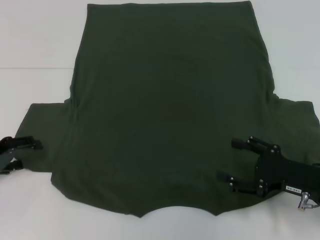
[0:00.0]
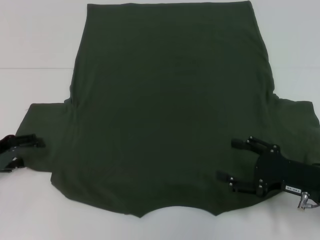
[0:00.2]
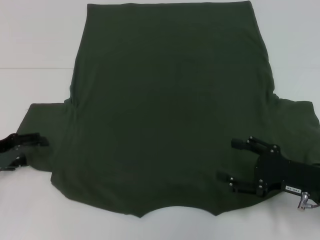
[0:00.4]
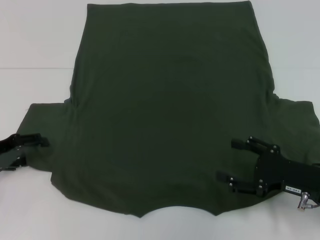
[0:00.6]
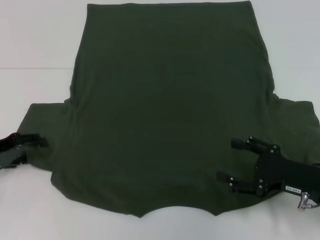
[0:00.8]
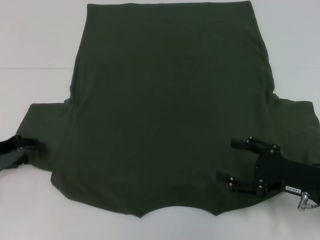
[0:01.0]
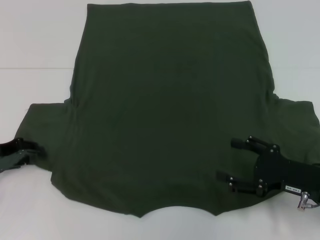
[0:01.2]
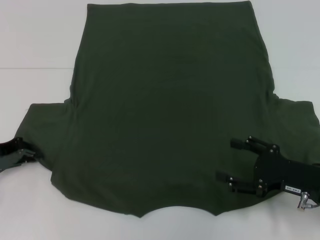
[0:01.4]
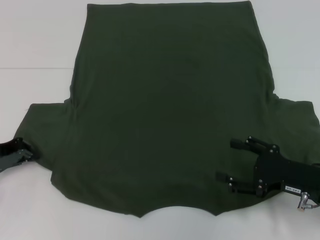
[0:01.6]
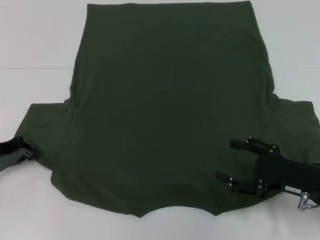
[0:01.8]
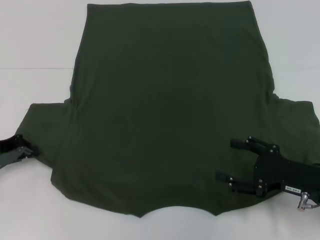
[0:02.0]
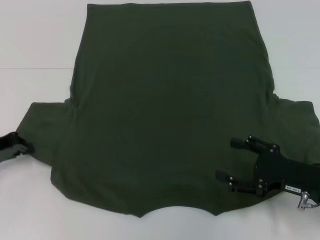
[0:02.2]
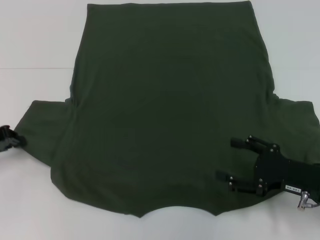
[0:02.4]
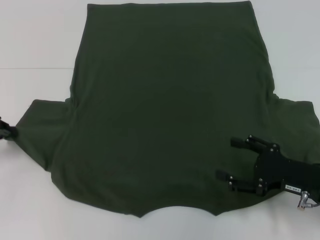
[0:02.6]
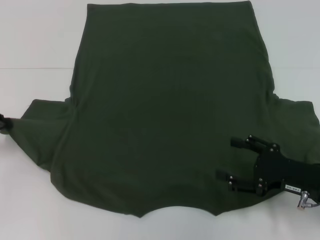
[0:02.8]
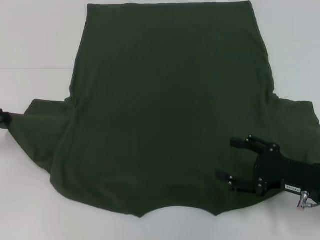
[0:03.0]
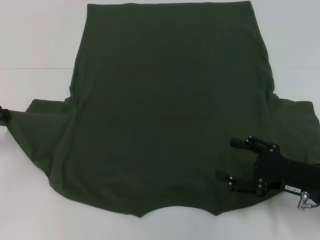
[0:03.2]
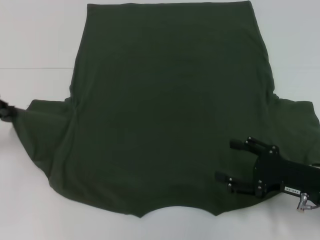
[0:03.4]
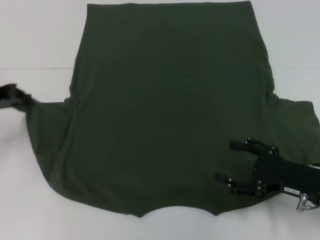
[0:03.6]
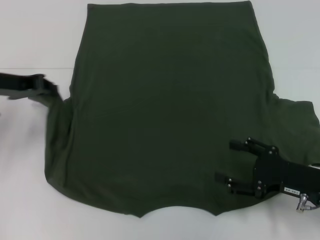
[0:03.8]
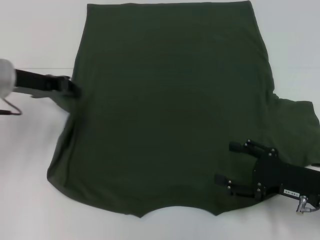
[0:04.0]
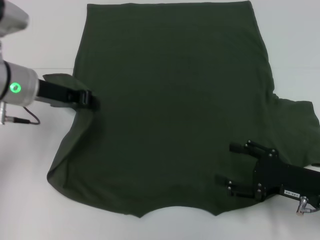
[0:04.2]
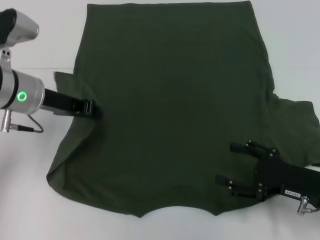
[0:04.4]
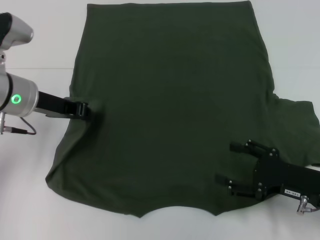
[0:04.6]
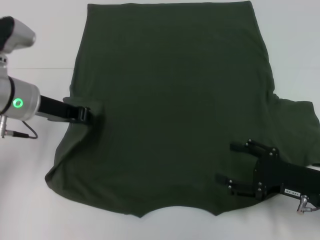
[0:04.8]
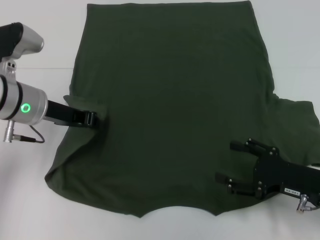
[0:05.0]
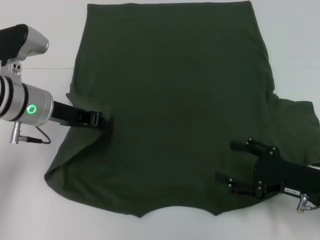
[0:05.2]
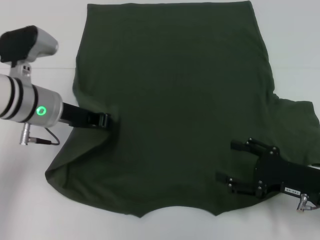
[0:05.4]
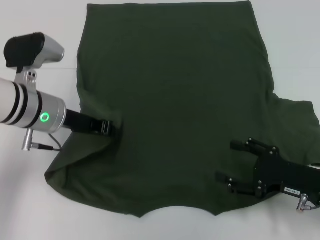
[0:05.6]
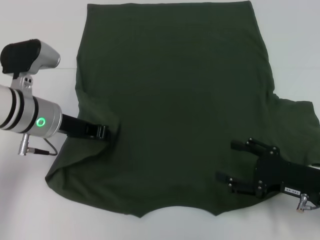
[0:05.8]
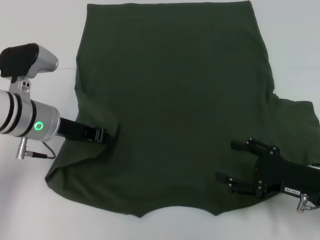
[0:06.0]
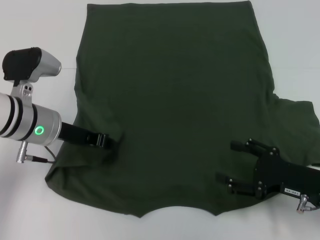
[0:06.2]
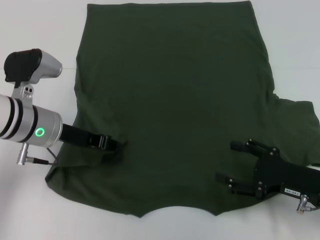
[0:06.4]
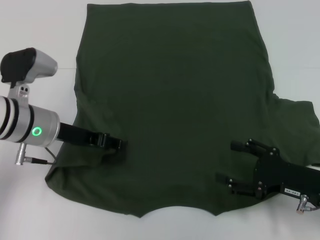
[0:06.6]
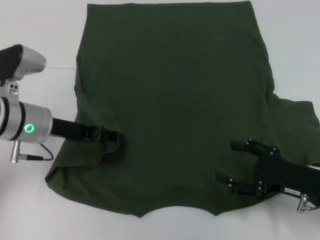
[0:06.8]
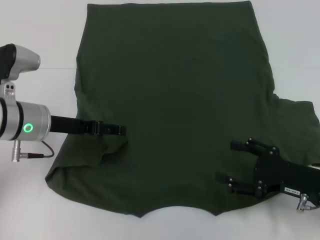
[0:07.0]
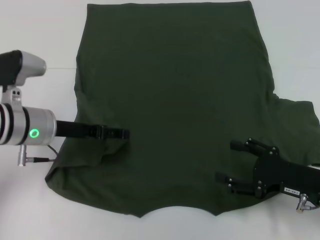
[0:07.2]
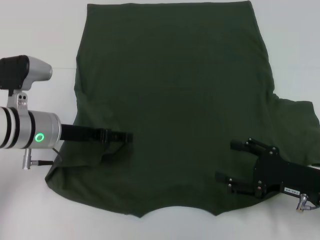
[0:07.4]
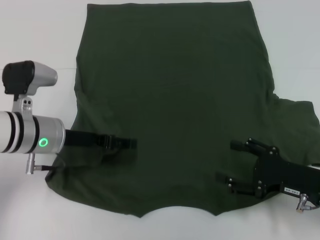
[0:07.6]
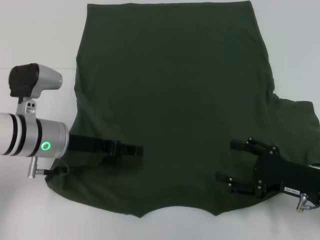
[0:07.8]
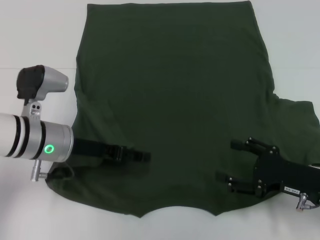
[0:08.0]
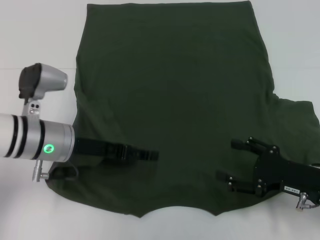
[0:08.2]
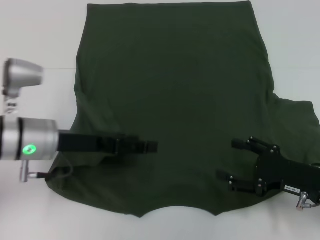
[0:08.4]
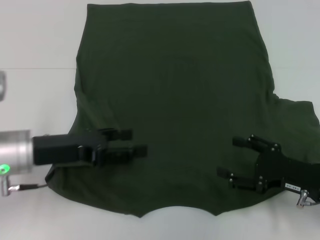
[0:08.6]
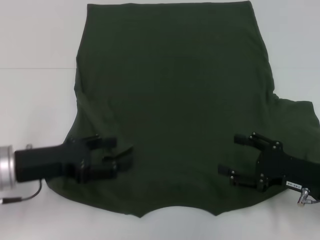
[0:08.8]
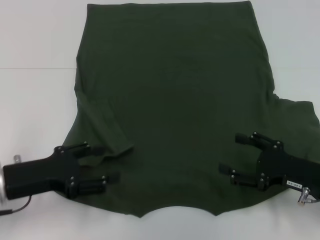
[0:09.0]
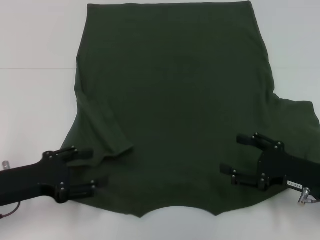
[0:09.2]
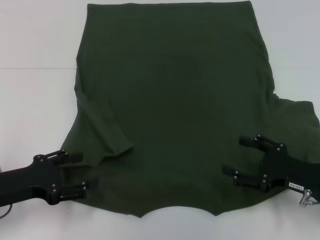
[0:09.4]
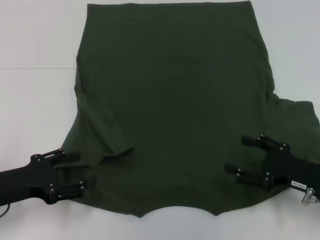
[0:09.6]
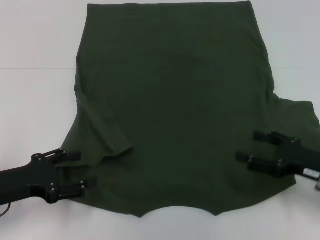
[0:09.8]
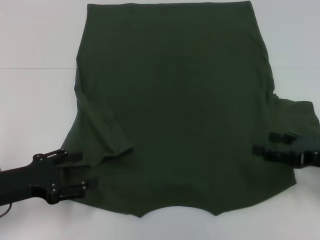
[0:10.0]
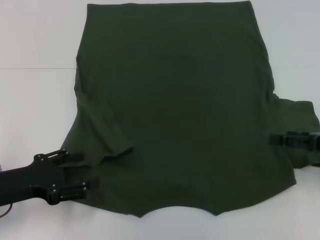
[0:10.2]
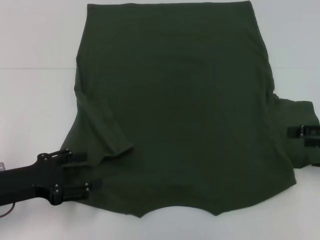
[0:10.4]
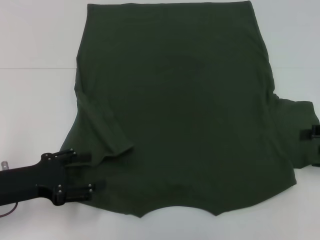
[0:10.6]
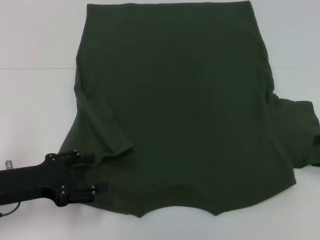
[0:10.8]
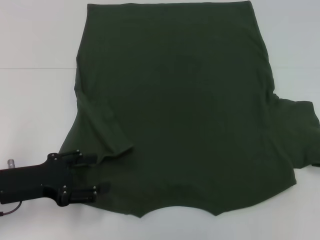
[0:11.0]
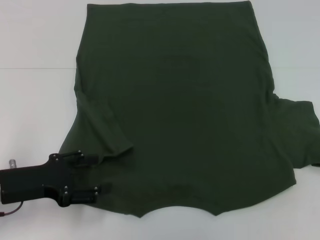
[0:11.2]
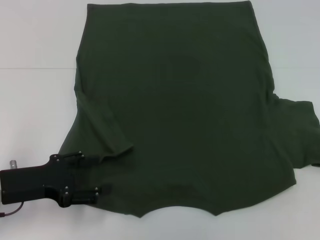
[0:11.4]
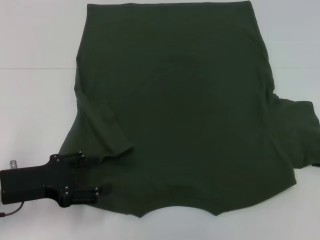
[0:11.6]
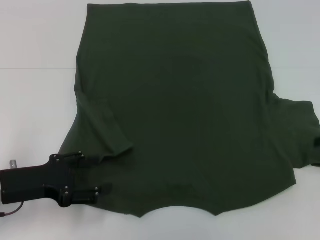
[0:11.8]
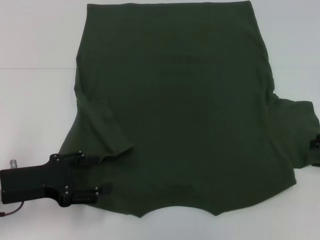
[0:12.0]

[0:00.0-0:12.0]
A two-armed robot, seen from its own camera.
Step, 0:00.0 to 0:06.4: Fold the bottom left sleeve with your left hand.
0:00.0 to 0:01.6: The left gripper closes its fingers.
0:01.6 to 0:03.0: The left gripper travels upward by about 5 cm.
0:03.0 to 0:04.4: The left gripper is displaced to the right by about 15 cm.
0:04.4 to 0:06.0: There are only small adjustments of the grippers.
0:06.0 to 0:07.6: The left gripper opens up.
0:07.6 to 0:09.0: The left gripper moves backward and to the left, some 10 cm.
0:09.0 to 0:10.4: The right gripper shifts approximately 10 cm upward and to the right.

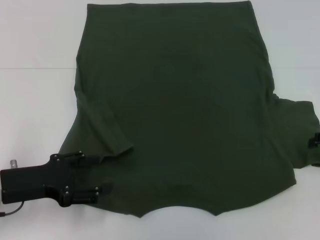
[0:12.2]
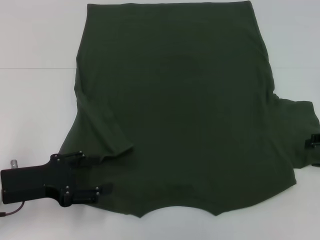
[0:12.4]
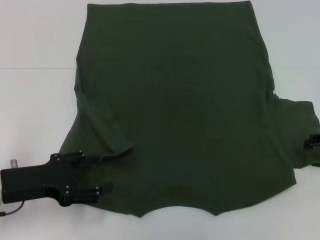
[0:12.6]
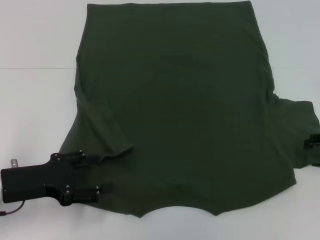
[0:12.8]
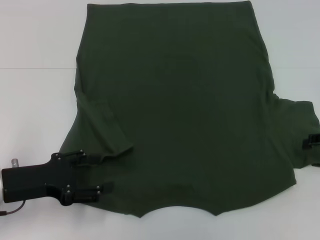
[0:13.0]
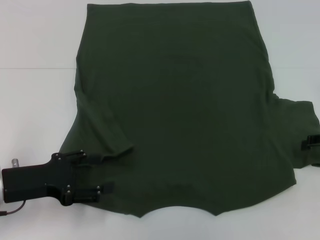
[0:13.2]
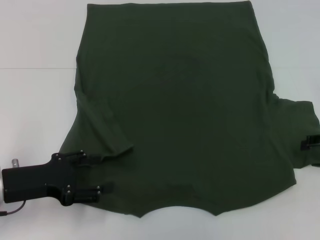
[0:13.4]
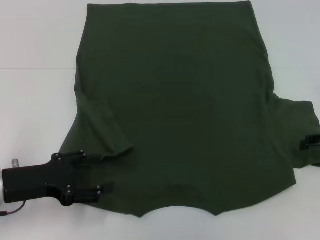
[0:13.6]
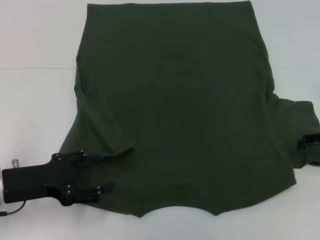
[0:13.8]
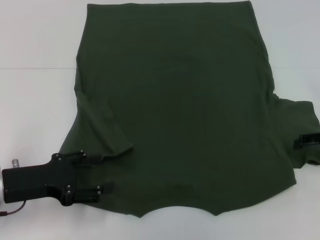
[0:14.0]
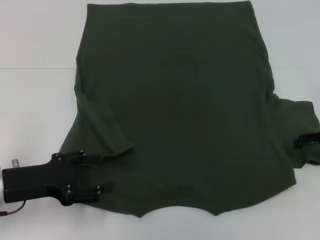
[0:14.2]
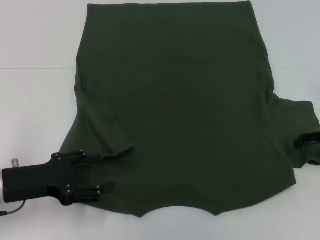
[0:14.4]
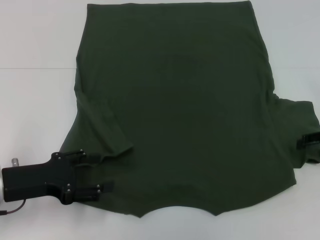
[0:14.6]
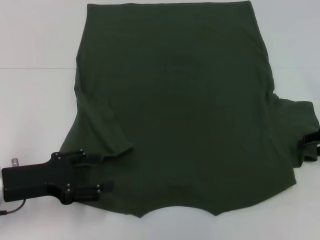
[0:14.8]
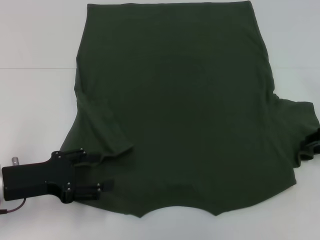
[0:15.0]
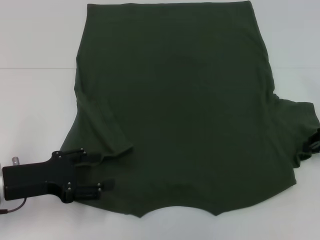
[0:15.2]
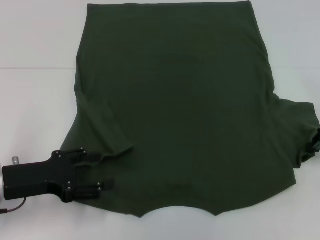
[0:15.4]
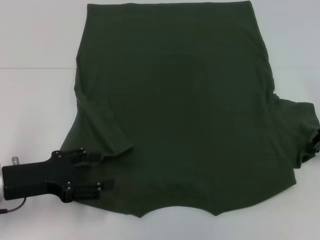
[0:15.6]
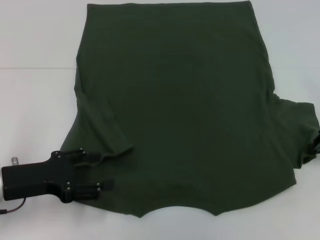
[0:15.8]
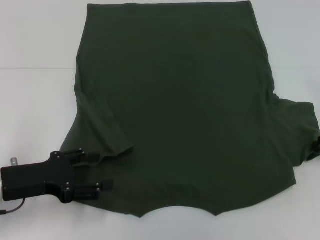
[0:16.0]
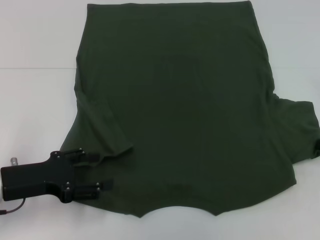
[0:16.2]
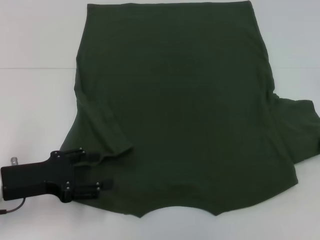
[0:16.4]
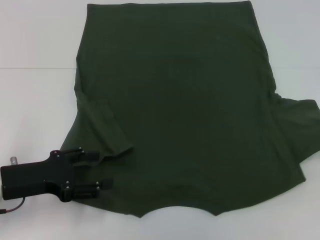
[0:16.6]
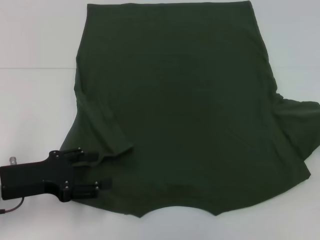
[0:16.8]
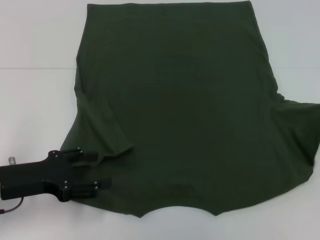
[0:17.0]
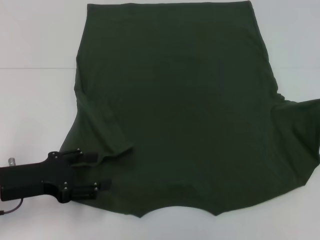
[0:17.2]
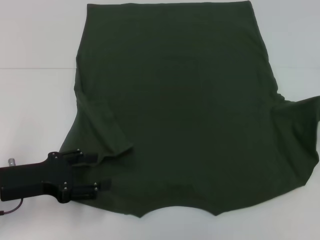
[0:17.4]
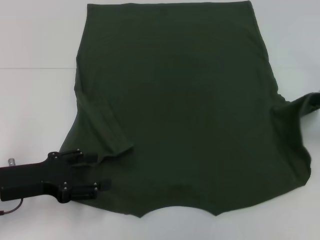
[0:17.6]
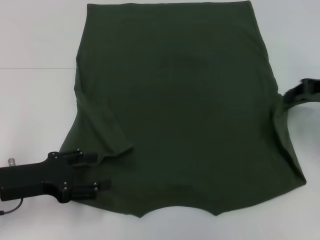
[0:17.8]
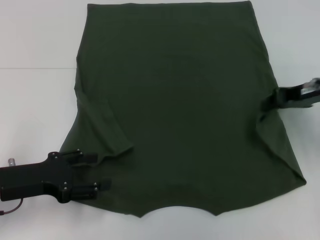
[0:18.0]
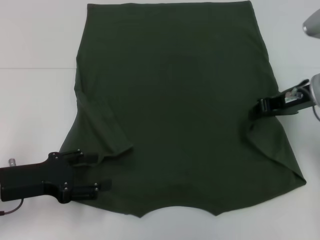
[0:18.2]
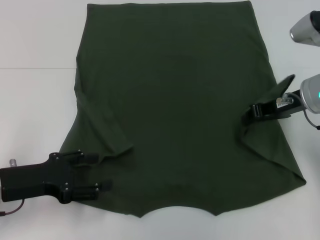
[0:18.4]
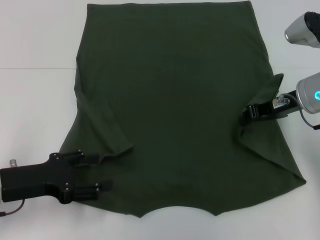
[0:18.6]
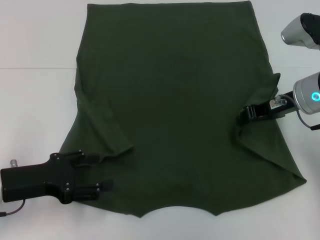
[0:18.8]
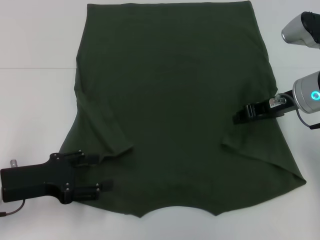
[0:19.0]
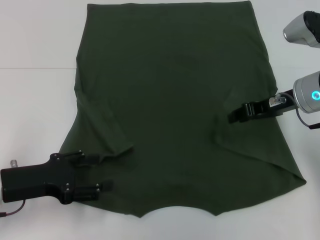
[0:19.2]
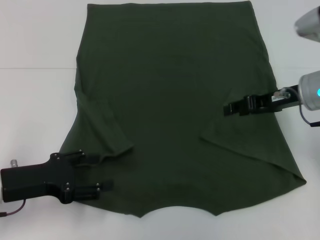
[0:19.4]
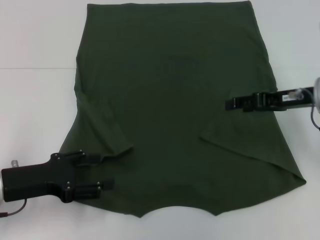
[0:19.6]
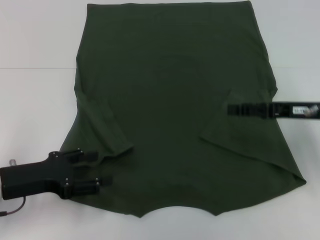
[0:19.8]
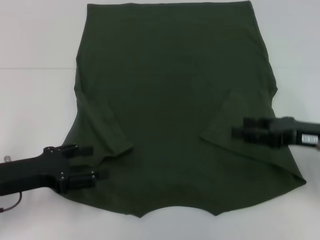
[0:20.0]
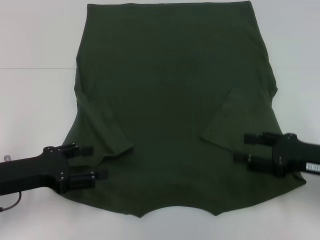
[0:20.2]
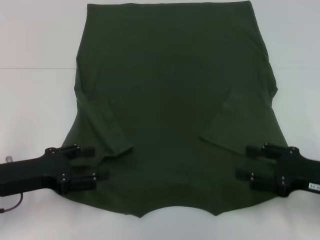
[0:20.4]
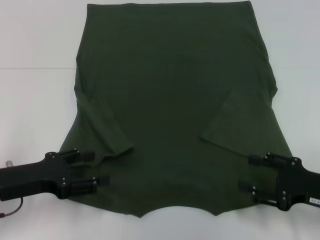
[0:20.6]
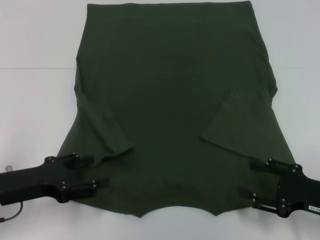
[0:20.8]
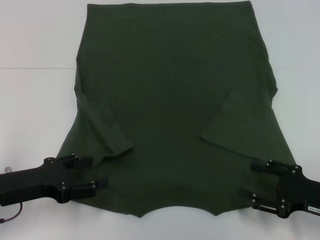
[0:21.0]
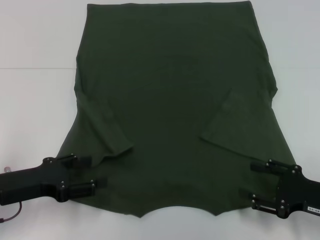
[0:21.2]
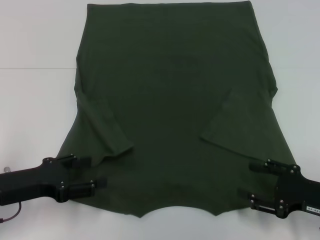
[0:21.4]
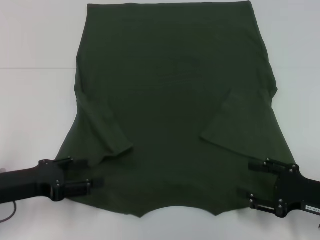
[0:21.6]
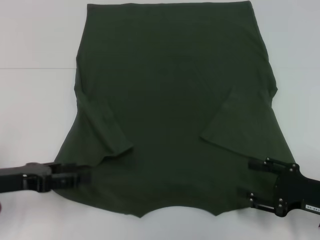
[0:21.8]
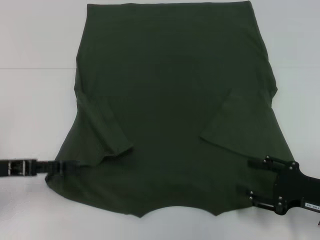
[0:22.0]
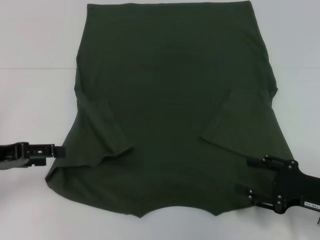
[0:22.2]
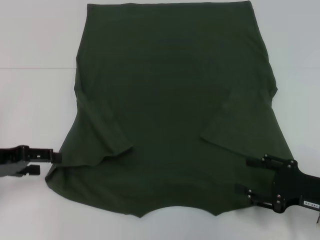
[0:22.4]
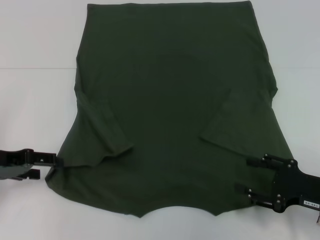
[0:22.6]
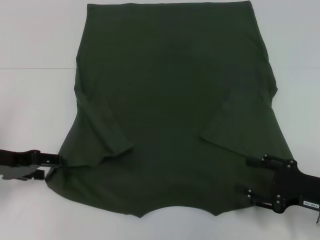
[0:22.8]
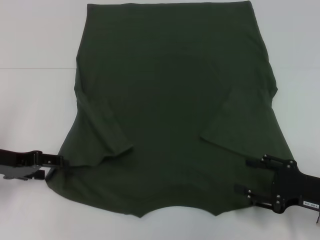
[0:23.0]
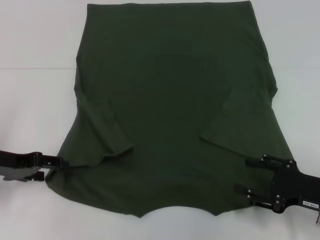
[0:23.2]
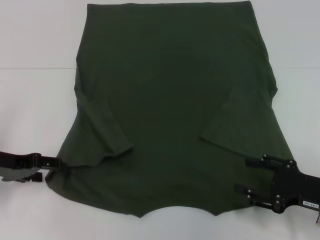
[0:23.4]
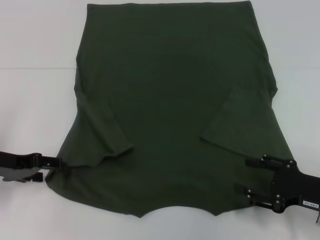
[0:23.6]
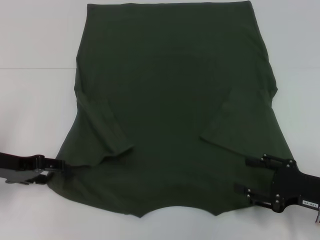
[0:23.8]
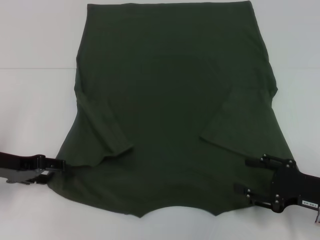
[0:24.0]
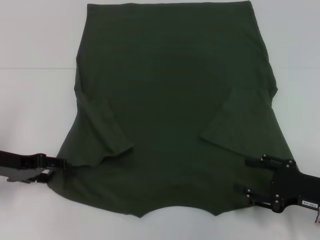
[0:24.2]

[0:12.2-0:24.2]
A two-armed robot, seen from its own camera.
Step, 0:12.2 to 0:19.2: Fold the bottom right sleeve with your right hand.
0:15.2 to 0:16.6: The right gripper closes up.
0:16.6 to 0:18.2: The right gripper is displaced to the left and forward by some 15 cm.
0:18.2 to 0:19.8: The right gripper shifts by approximately 5 cm, and opens its fingers.
0:19.8 to 0:21.2: The right gripper is displaced backward and downward by about 15 cm.
0:21.2 to 0:22.6: The left gripper changes place by about 10 cm.
0:22.6 to 0:24.2: The grippers stay close to where they were, moving slightly.
